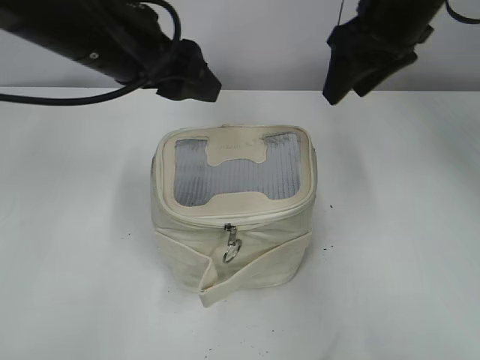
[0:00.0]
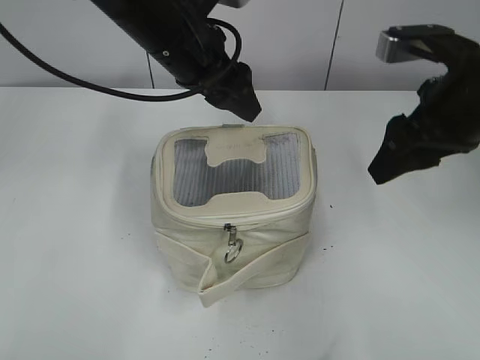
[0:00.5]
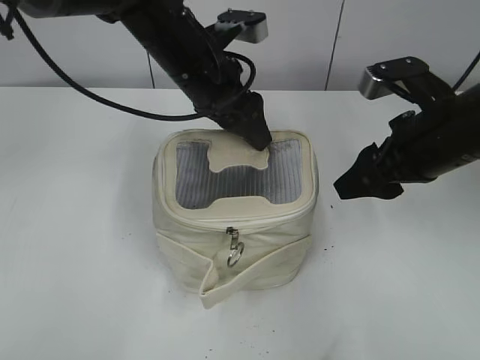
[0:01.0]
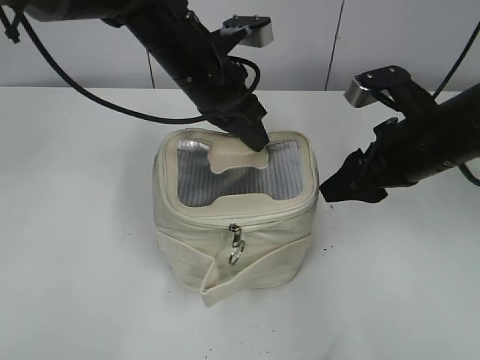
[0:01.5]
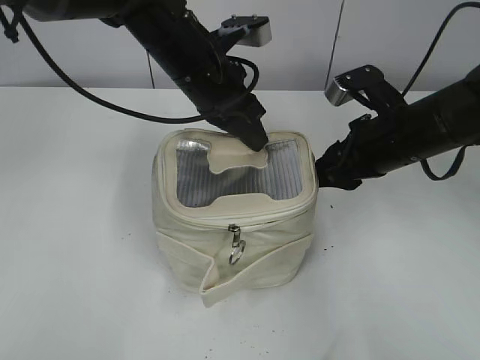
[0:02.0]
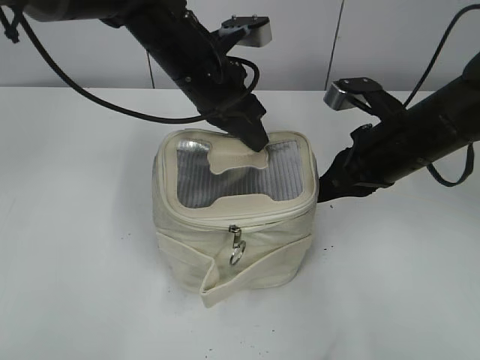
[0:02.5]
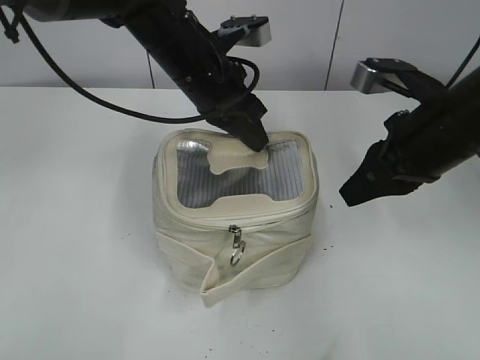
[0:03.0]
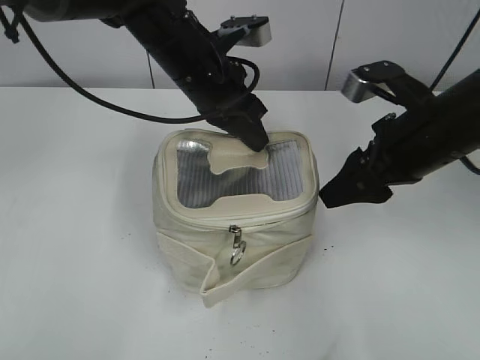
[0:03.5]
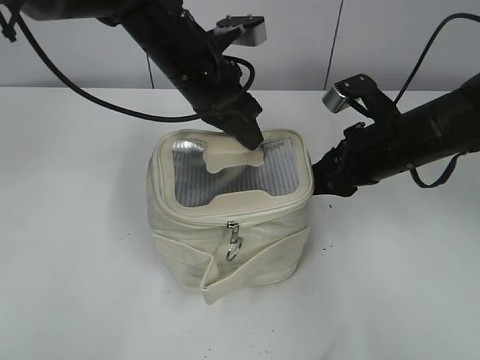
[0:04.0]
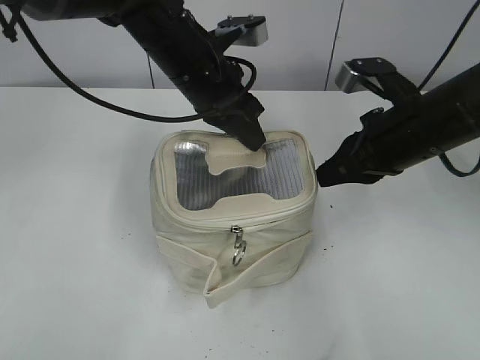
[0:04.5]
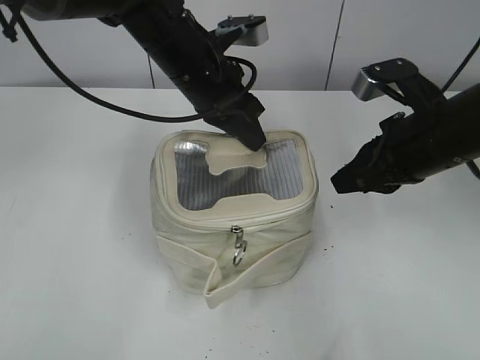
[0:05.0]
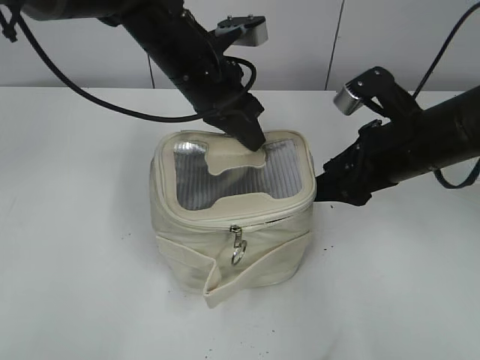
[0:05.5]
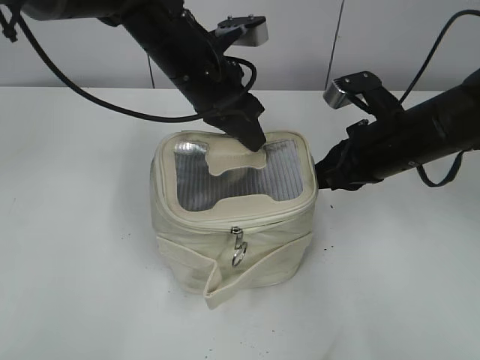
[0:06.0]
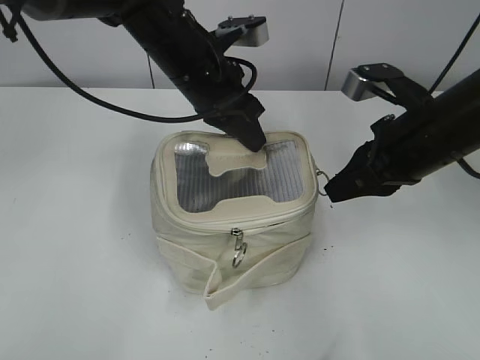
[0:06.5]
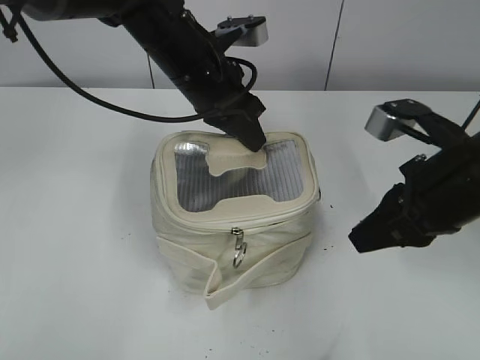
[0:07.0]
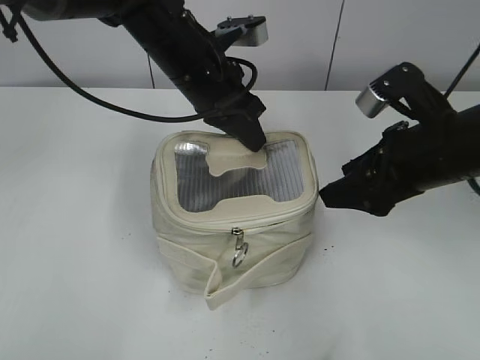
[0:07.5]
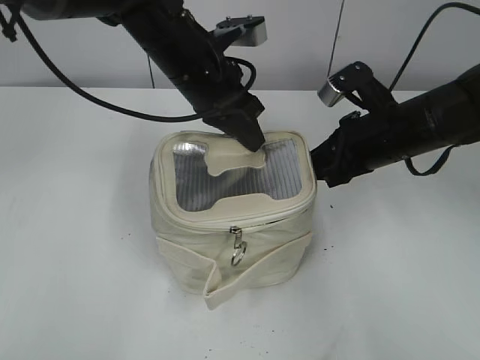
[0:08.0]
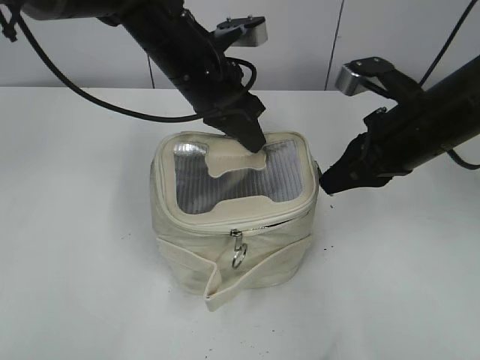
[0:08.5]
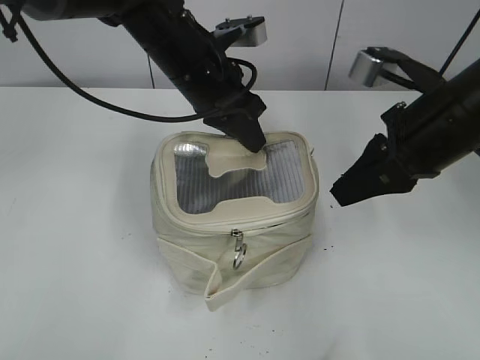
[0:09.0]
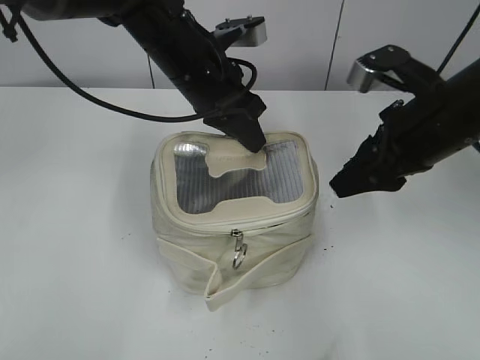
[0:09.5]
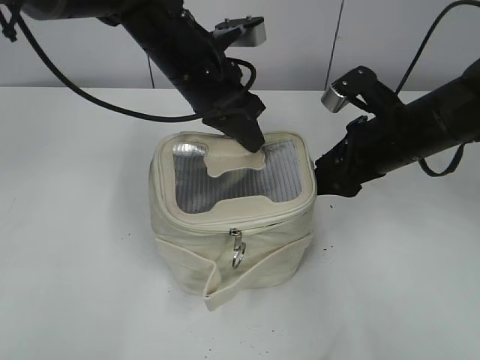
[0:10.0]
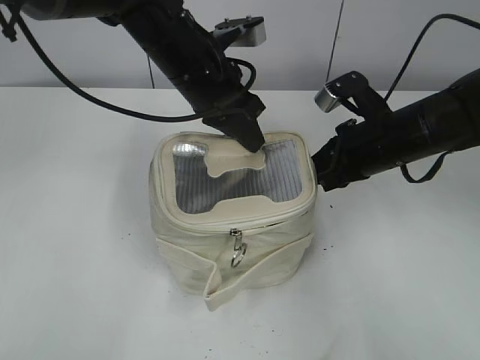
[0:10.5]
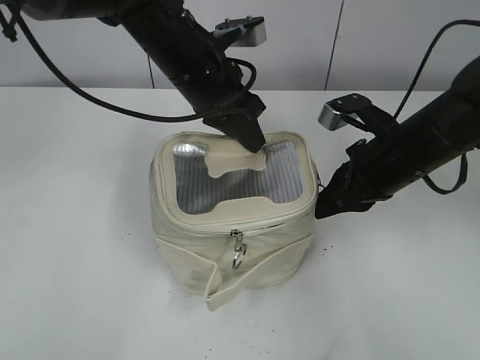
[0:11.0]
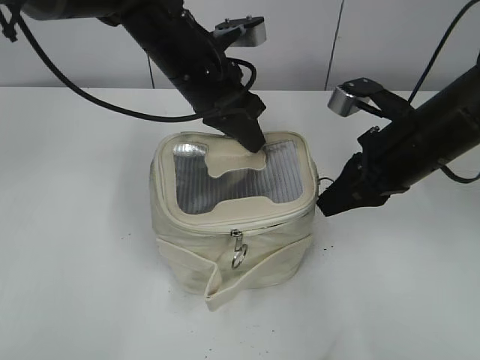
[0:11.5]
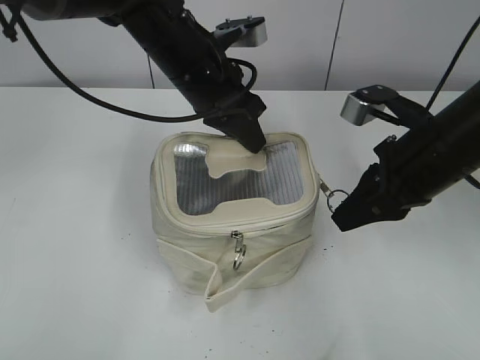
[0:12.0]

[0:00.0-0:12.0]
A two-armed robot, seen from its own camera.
0:00.0 to 0:02.0: The right gripper goes some 15 cm downward and backward, while the left gripper goes approximately 10 cm to the right, forward and downward, and closes.
0:02.0 to 0:04.0: The right gripper closes, then opens again.
0:04.0 to 0:06.0: The right gripper closes up.
0:06.0 to 0:08.0: The right gripper travels backward and back again, about 10 cm each way, and opens up.
0:08.0 to 0:10.0: The right gripper opens.
0:10.0 to 0:12.0: The right gripper changes place by about 5 cm, and closes.

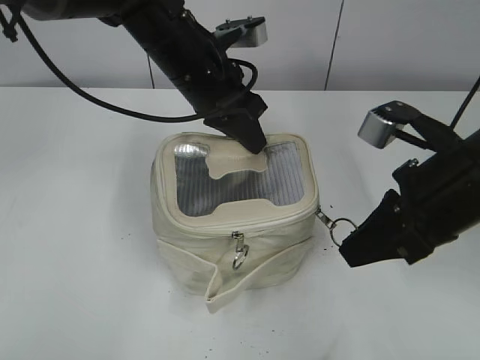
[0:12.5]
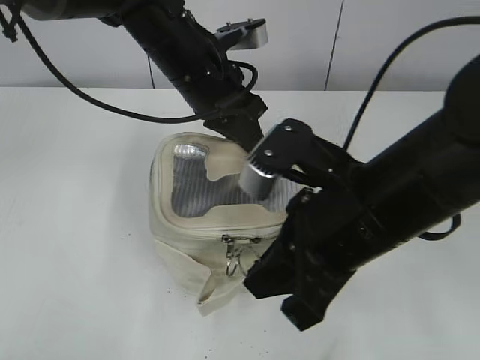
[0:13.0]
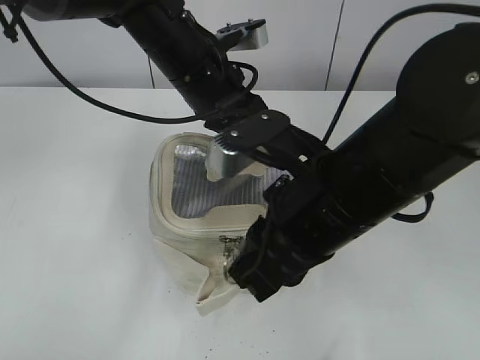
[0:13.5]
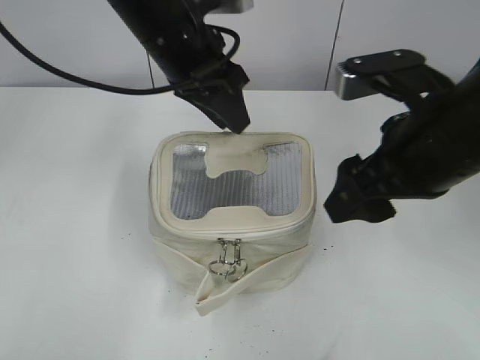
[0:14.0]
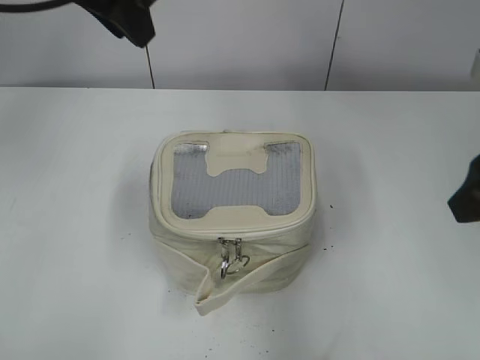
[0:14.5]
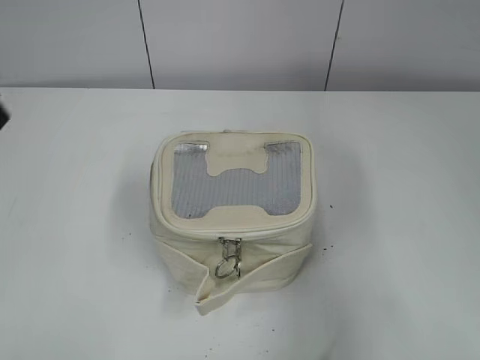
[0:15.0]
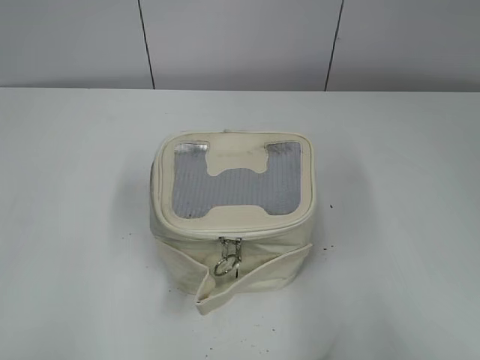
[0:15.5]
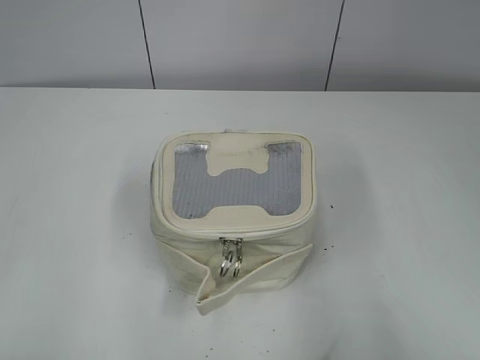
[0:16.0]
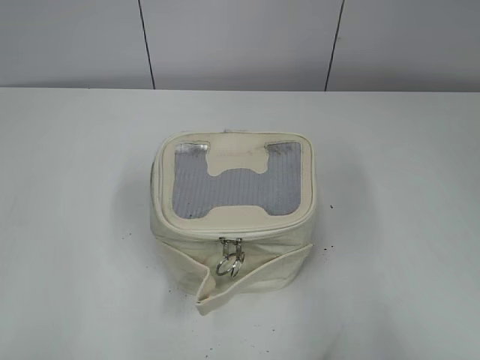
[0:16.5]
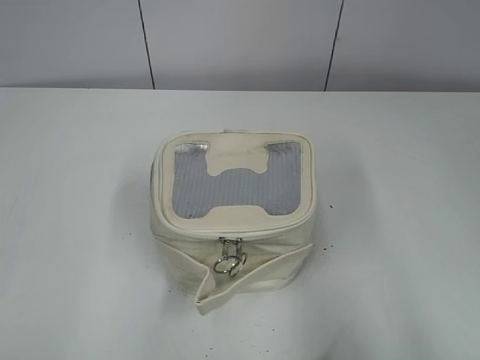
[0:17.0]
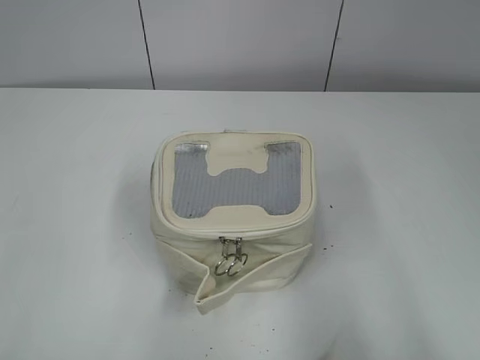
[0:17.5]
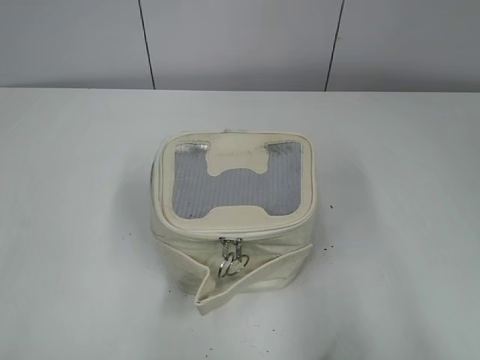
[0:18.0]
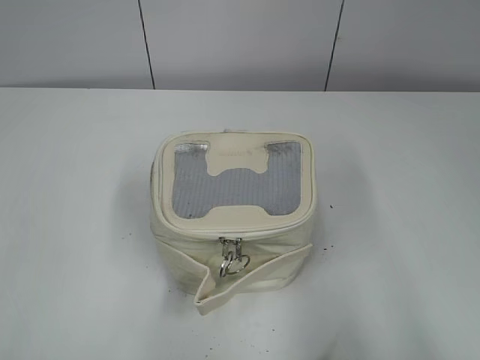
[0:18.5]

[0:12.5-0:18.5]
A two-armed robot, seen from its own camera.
0:12.5 to 0:14.5: The left gripper moves upward and to the left, some 15 cm, and opens; the right gripper moves upward, approximately 5 cm, goes to the left and returns, approximately 10 cm each way, and opens.
0:14.5 to 0:16.5: The left gripper moves backward and to the left, roughly 35 cm. The right gripper goes about 20 cm backward.

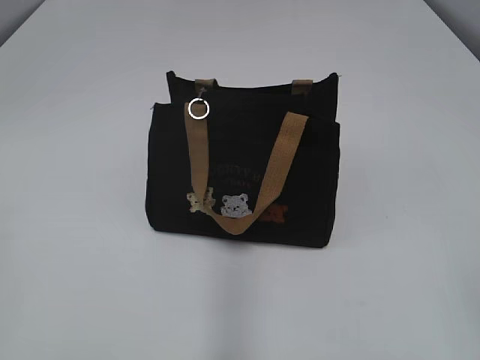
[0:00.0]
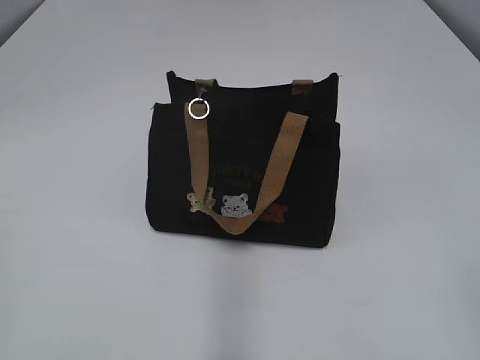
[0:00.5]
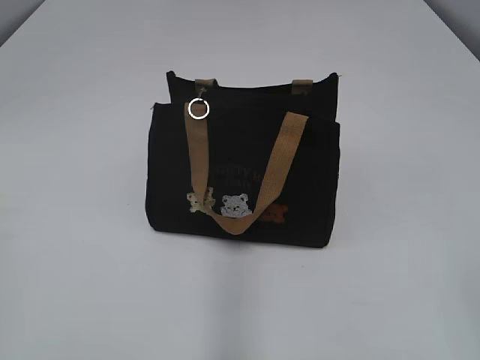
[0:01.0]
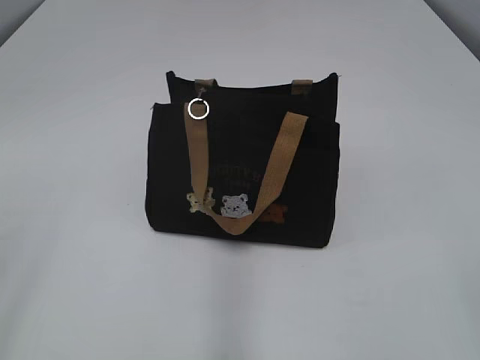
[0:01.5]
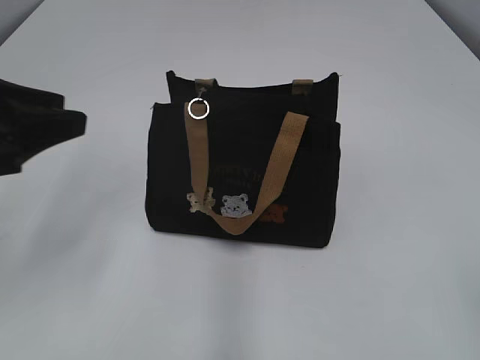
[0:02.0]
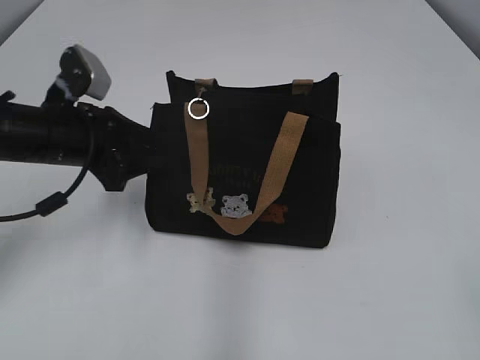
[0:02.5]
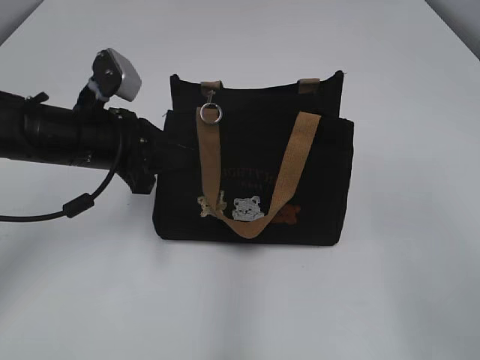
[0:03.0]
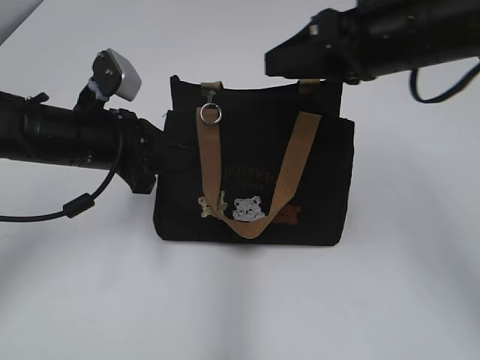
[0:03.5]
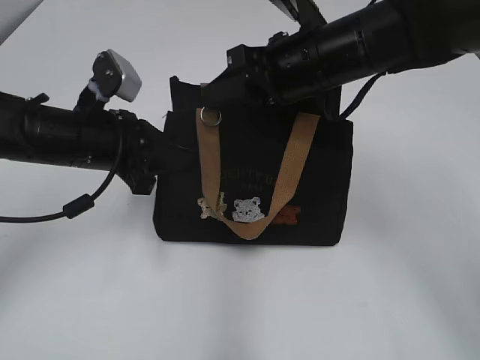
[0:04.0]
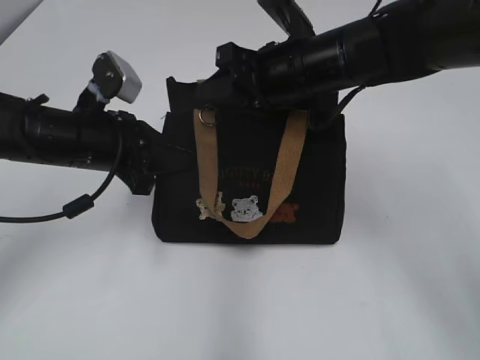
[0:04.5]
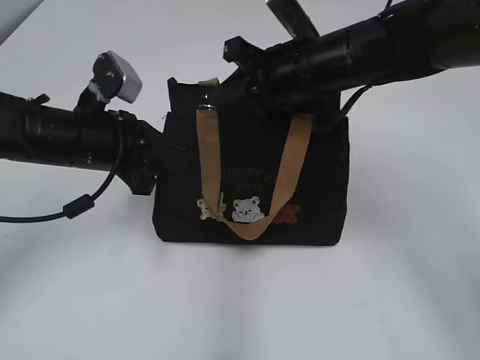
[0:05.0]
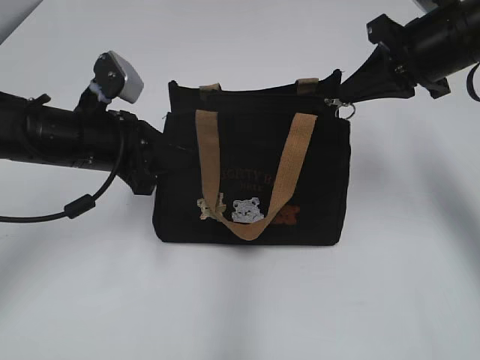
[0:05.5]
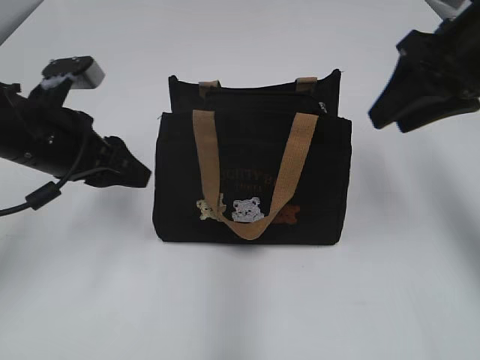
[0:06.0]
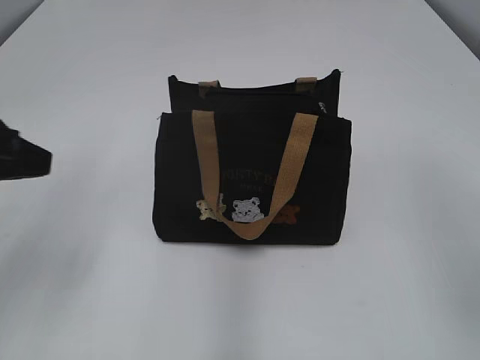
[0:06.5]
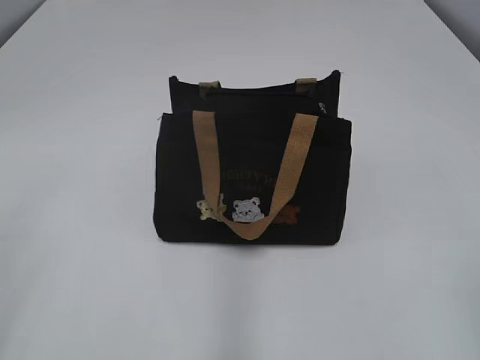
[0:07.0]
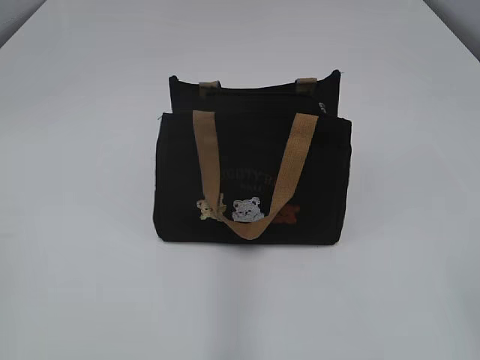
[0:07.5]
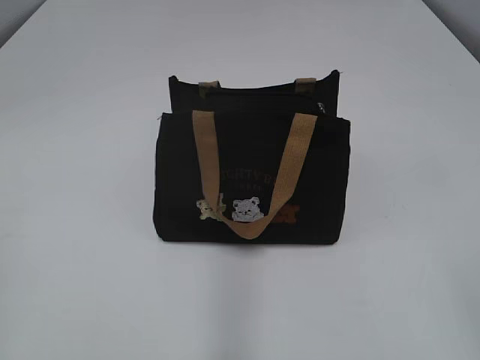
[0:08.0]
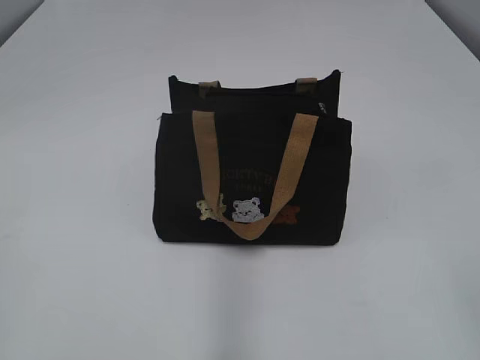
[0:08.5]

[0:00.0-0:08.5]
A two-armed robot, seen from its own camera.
Step, 0:00.0 to 0:05.5: Pull open the zipper with your right hand.
0:02.0 to 0:04.0: The right gripper goes approximately 40 cm forward and to the left, while the left gripper is displaced forward, downward and to the right by roughly 25 cm, and closes its fingers.
0:04.0 to 0:06.5: The left gripper goes approximately 10 cm backward, upward and to the left, and opens up; the right gripper shifts some 20 cm to the right, backward and upward, and closes and opens again.
0:06.5 to 0:08.5: The left gripper moves backward, roughly 25 cm.
